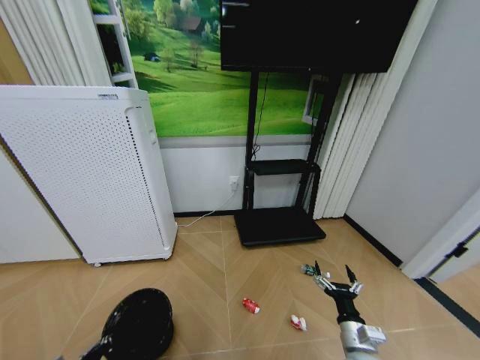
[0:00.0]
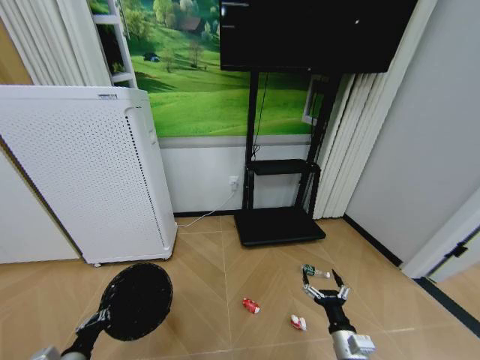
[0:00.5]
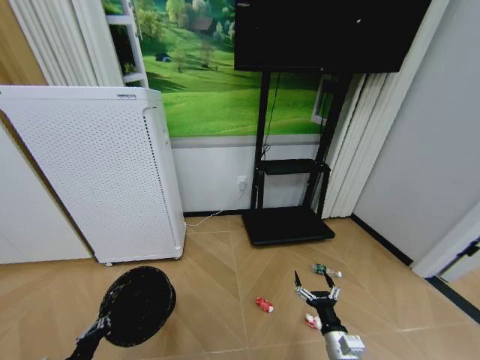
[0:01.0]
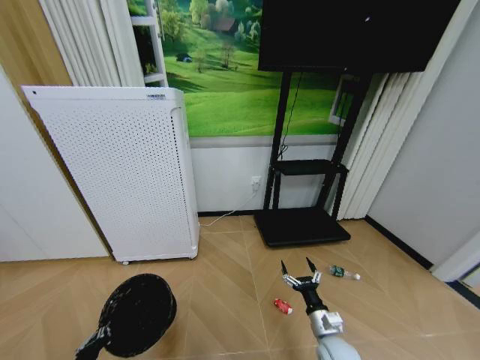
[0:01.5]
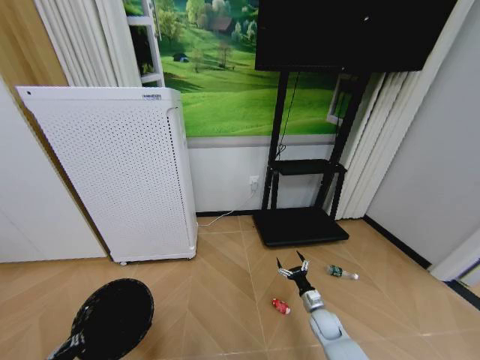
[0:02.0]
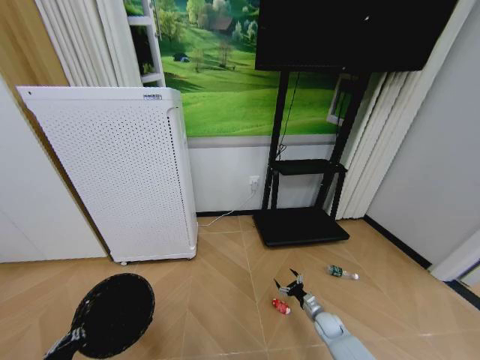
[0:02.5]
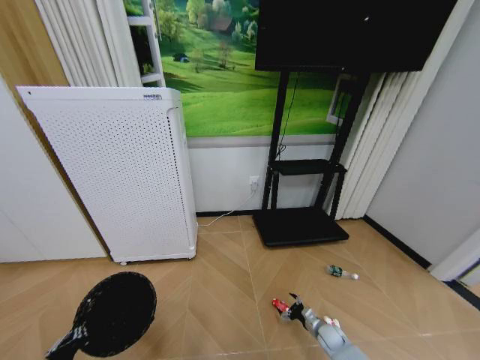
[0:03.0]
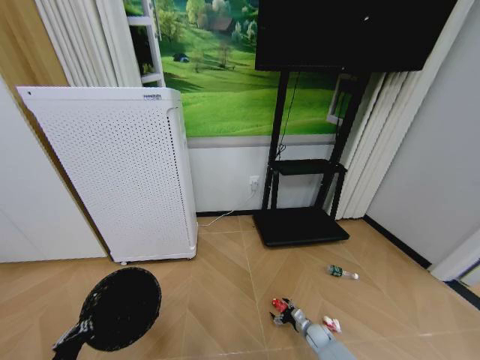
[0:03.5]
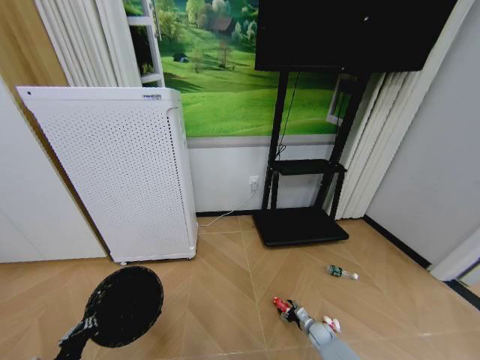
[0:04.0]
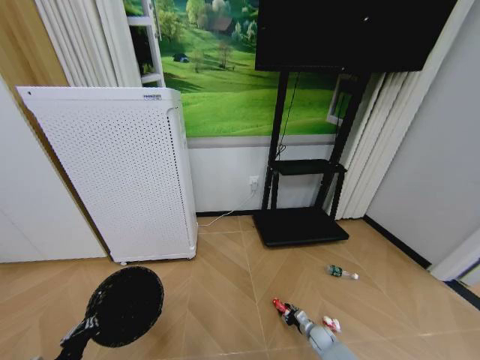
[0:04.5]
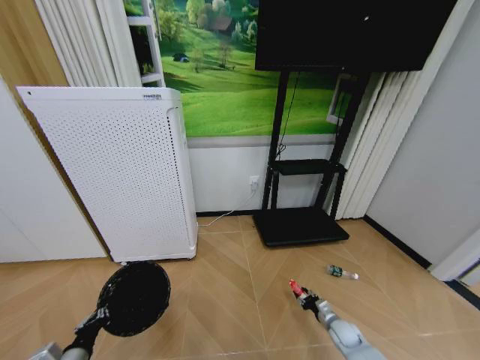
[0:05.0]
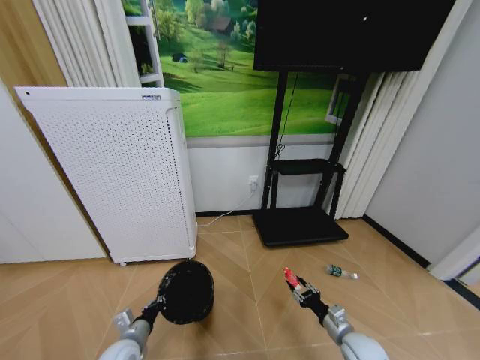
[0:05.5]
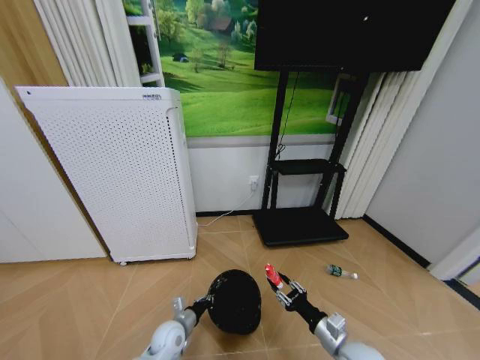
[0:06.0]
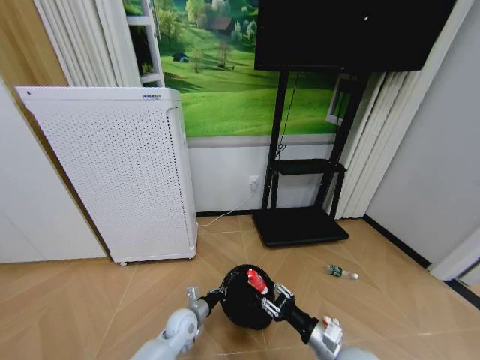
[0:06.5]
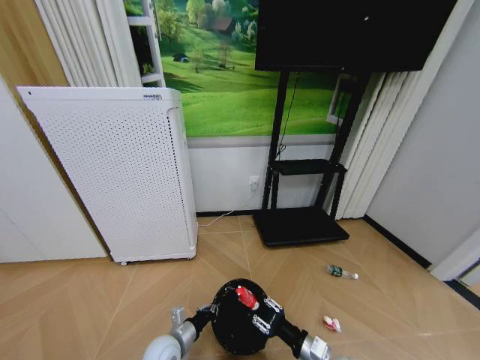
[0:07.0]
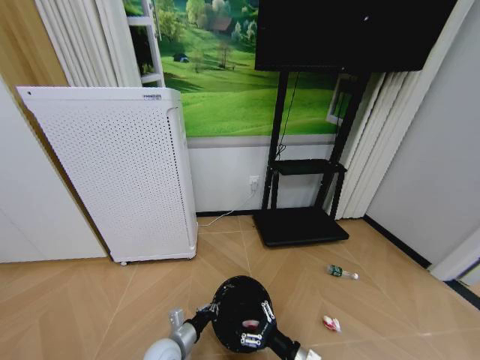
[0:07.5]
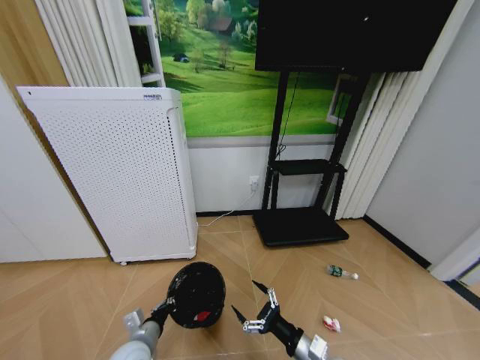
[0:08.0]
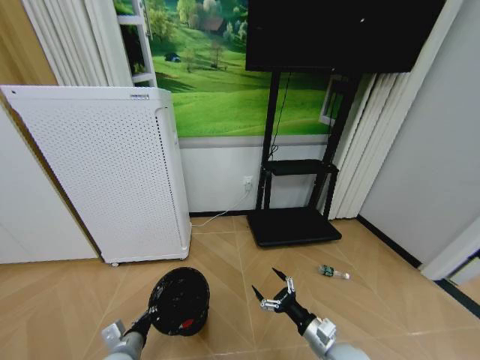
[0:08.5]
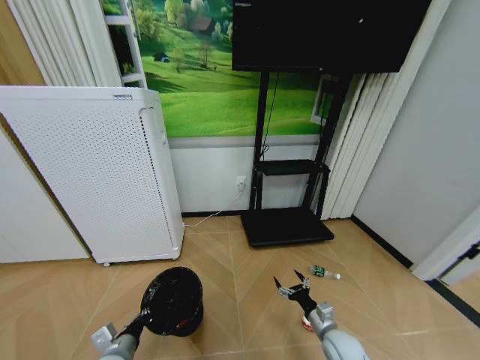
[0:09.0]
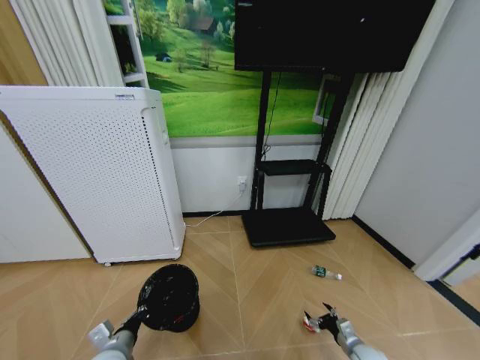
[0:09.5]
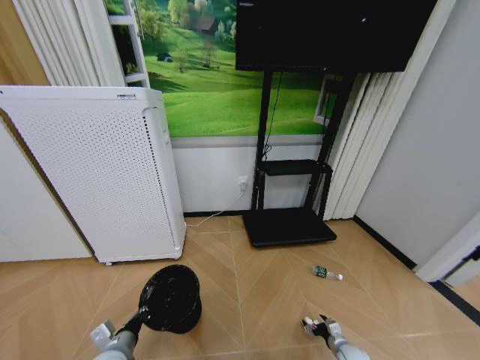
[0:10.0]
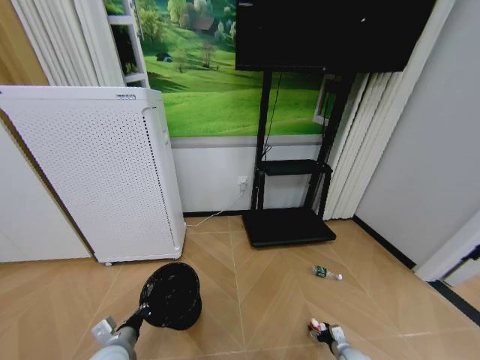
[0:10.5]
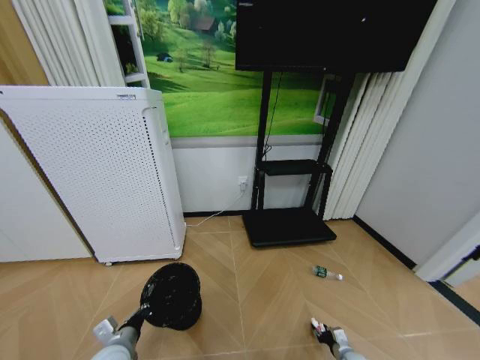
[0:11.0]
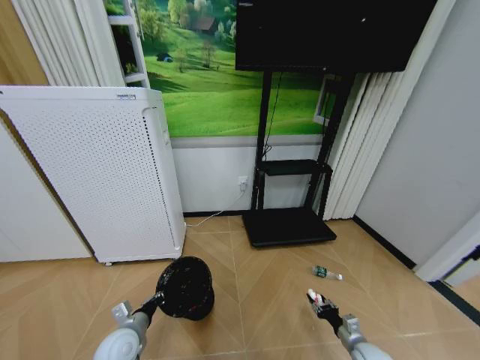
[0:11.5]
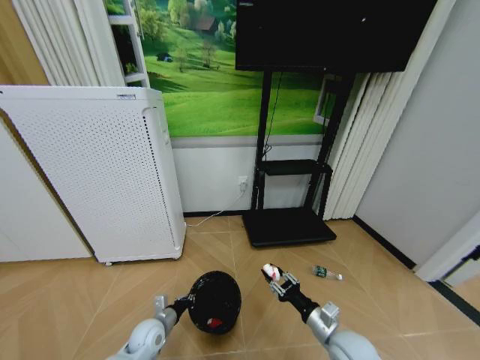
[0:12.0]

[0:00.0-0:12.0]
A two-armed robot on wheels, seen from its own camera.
Task of the whole recording: Pick up the trash bin and place the garbage on the floor into it.
0:00.0 to 0:02.0: The right gripper shifts about 20 cm forward and downward.
0:02.0 to 0:04.0: The right gripper heads downward, covering about 10 cm.
0:04.0 to 0:06.0: The left gripper moves to the right, forward and downward, about 25 cm, while the right gripper heads upward and backward, covering roughly 30 cm, and closes its fingers.
0:06.0 to 0:08.0: The right gripper travels to the left by roughly 5 cm, and opens its fingers. Meanwhile the left gripper is displaced upward, backward and to the left by about 10 cm.
0:08.0 to 0:10.0: The right gripper is displaced downward and to the right by some 30 cm. The left gripper ends up about 5 cm from where it was.
0:10.0 to 0:12.0: The left gripper shifts some 10 cm downward and forward; the right gripper is displaced upward and to the left by about 25 cm, and closes its fingers.

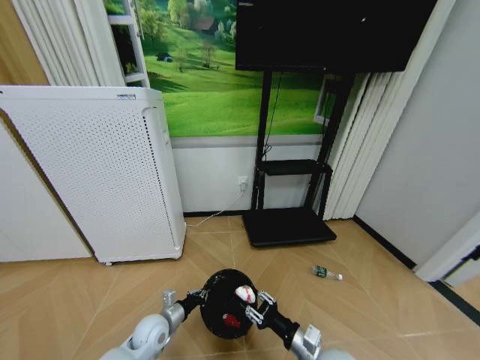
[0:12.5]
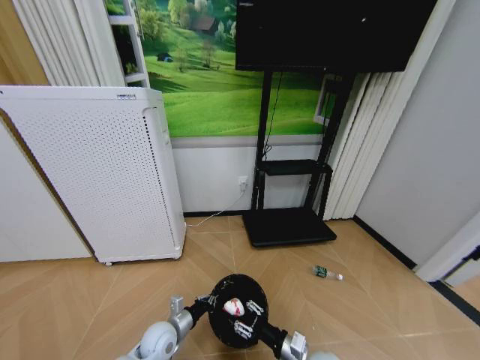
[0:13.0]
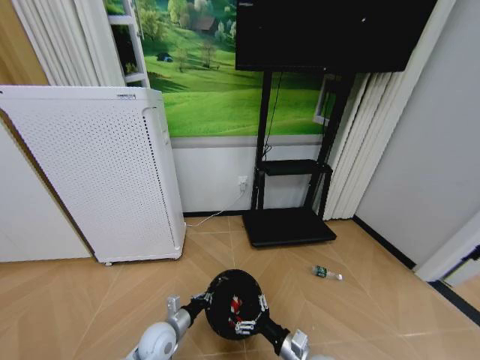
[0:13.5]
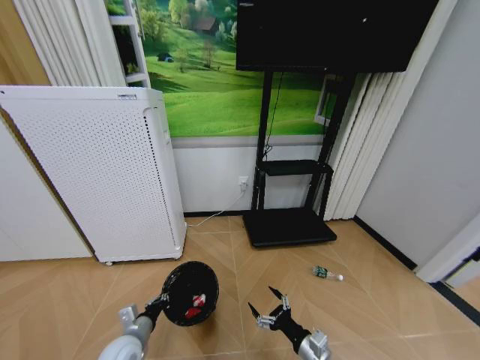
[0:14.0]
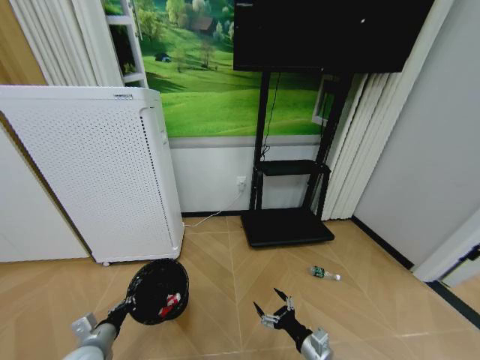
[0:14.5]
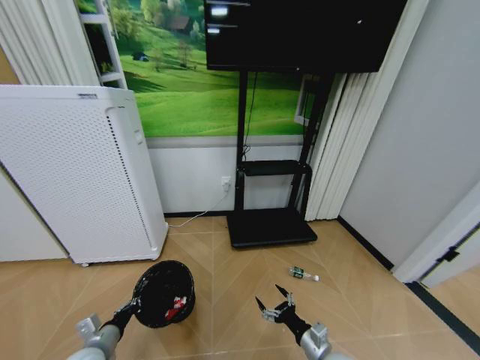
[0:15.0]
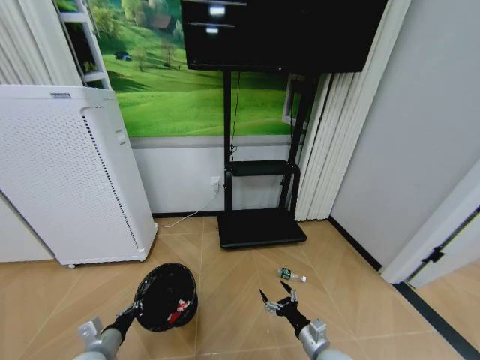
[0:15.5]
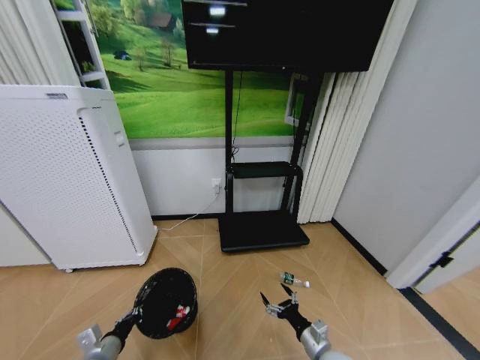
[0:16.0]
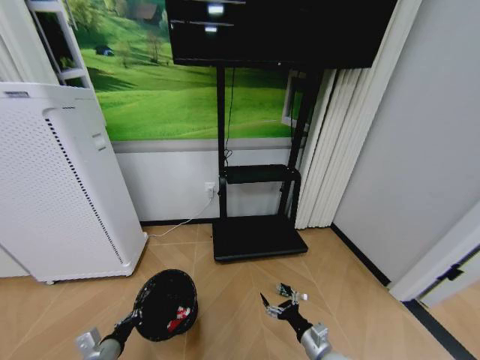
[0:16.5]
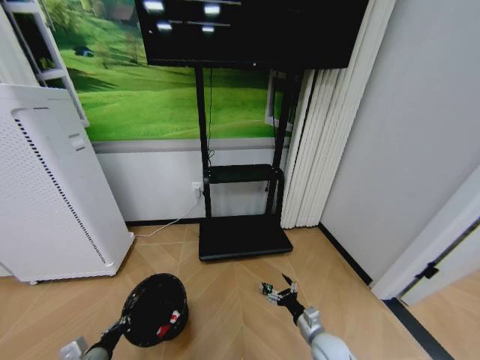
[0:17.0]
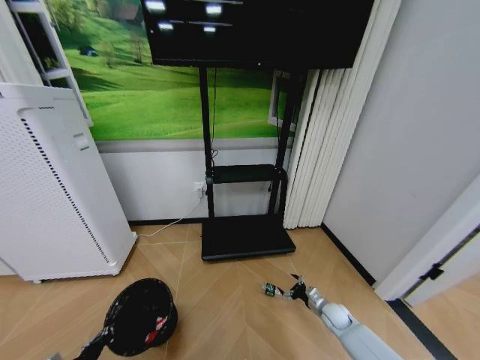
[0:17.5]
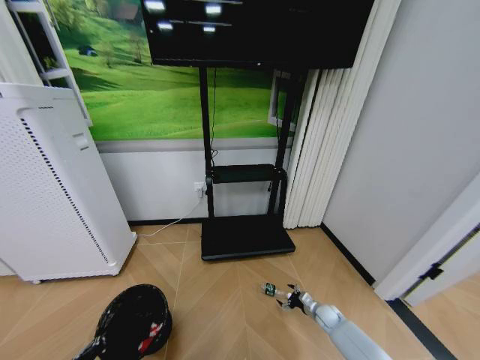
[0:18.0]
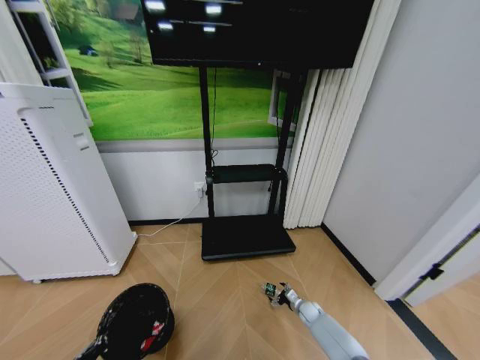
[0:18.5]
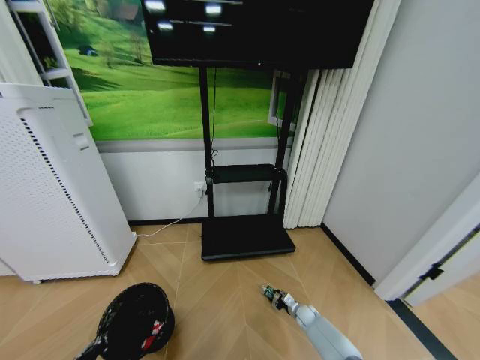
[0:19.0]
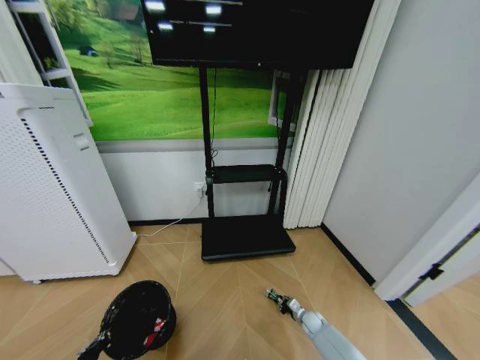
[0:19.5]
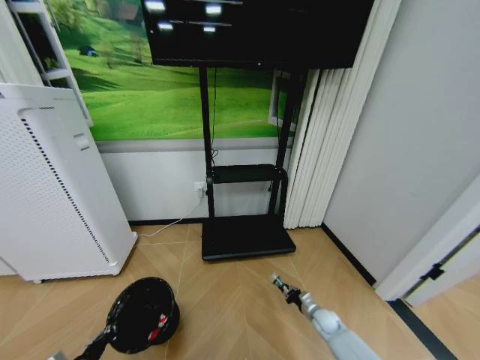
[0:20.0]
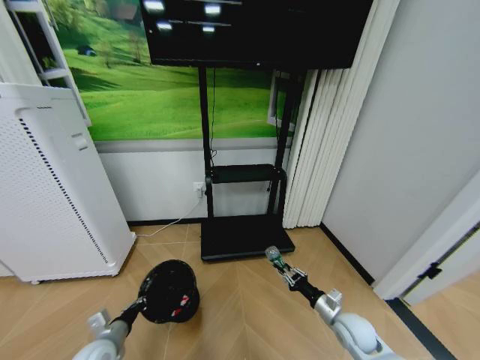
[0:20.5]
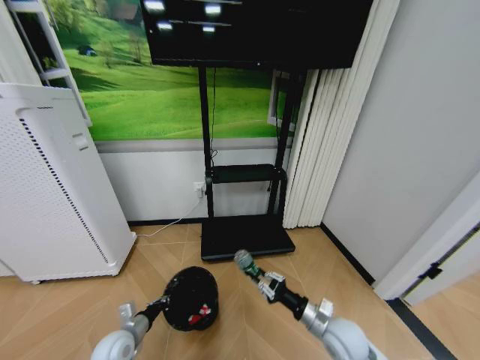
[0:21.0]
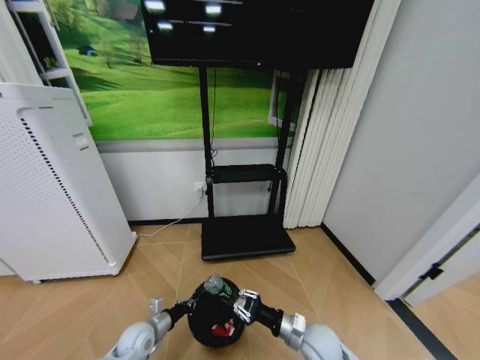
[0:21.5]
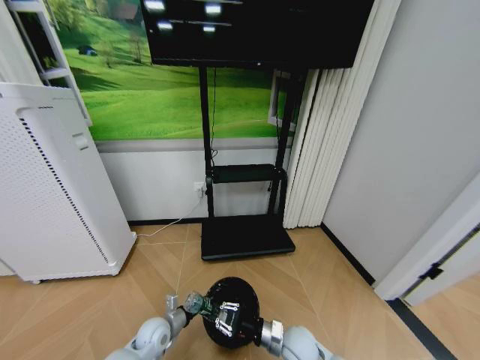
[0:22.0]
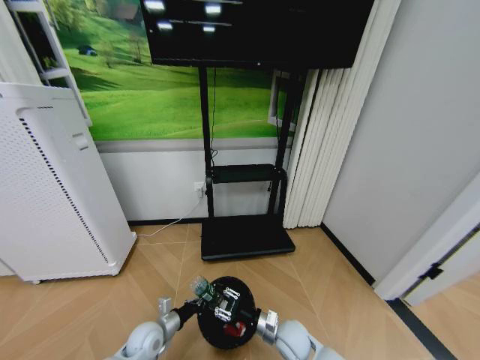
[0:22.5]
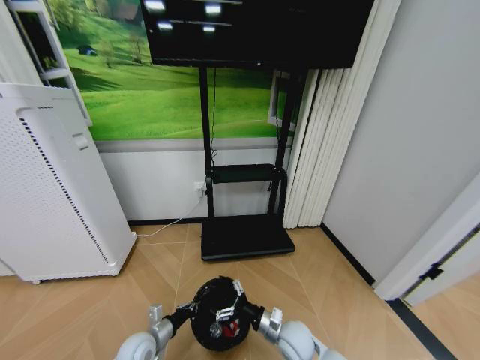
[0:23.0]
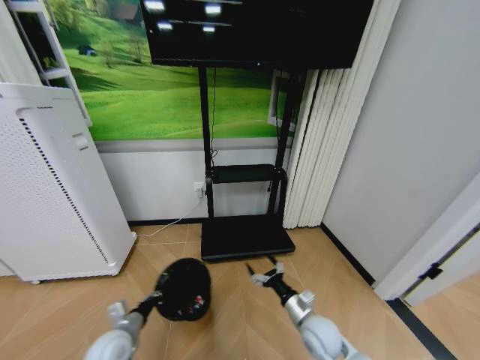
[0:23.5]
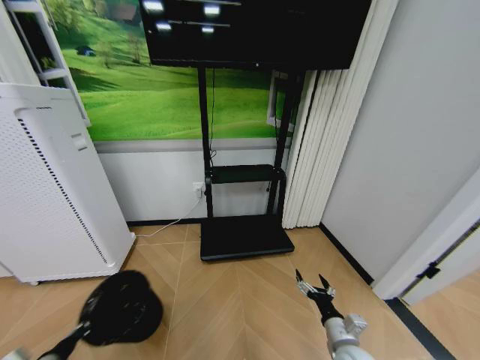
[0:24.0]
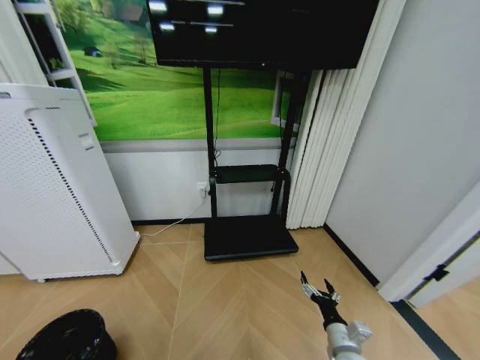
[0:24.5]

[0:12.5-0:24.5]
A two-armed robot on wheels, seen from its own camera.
Task of the whole recording: Pick up the trash bin and place the garbage on the floor into it.
0:12.5 to 0:14.5: The left gripper travels to the left, backward and upward by some 15 cm. Meanwhile the right gripper changes place by roughly 5 cm, and opens its fingers.
0:16.5 to 0:18.5: The right gripper is displaced forward and downward by about 25 cm, while the left gripper goes some 5 cm backward.
0:18.5 to 0:20.5: The right gripper moves upward and backward, about 25 cm, and closes its fingers; the left gripper travels forward by roughly 10 cm.
0:20.5 to 0:22.5: The right gripper is displaced to the left by roughly 20 cm. Meanwhile the left gripper goes some 10 cm to the right, downward and forward.
0:22.5 to 0:24.5: The right gripper heads to the right and backward, covering roughly 15 cm, and opens its fingers, while the left gripper shifts approximately 35 cm to the left and backward.

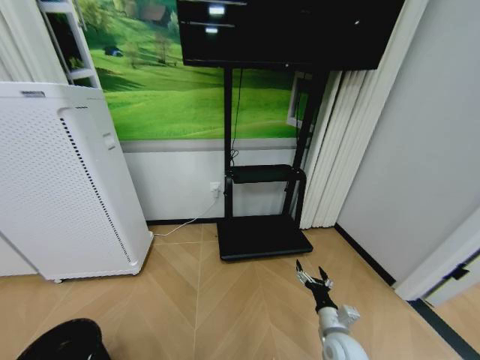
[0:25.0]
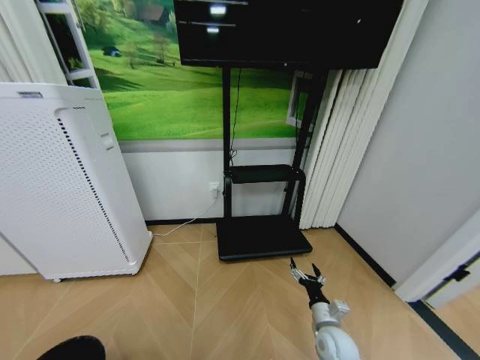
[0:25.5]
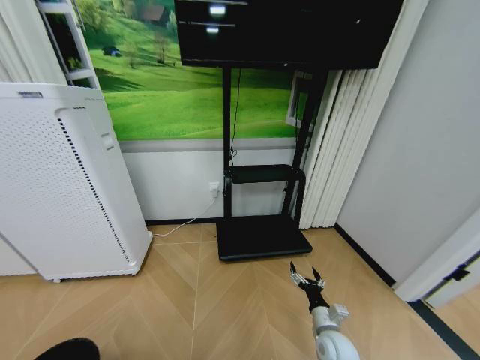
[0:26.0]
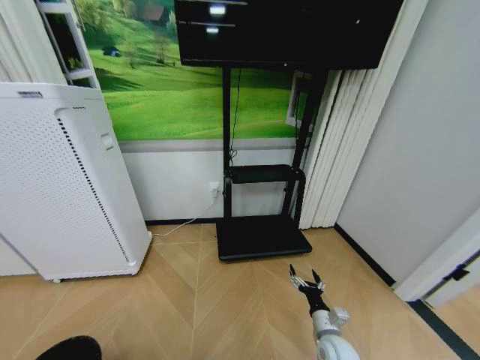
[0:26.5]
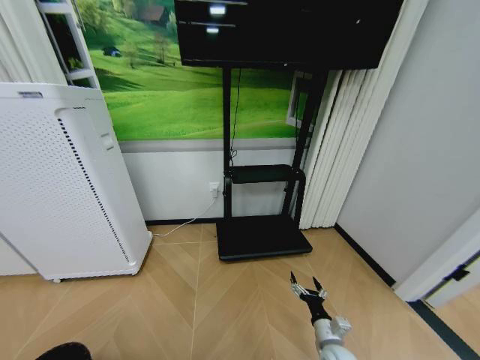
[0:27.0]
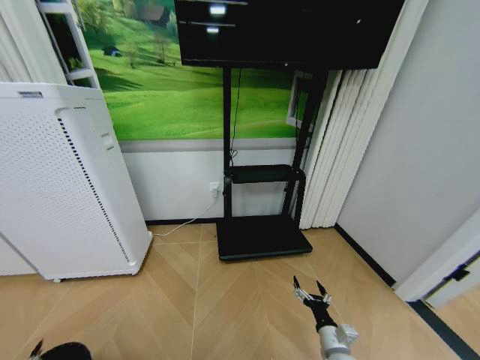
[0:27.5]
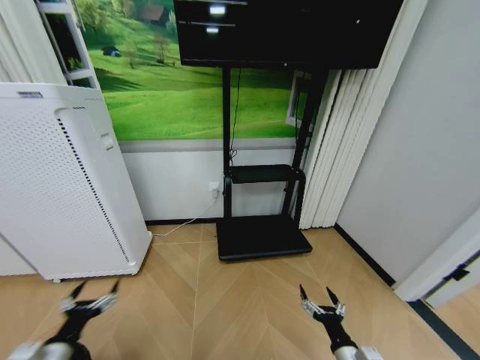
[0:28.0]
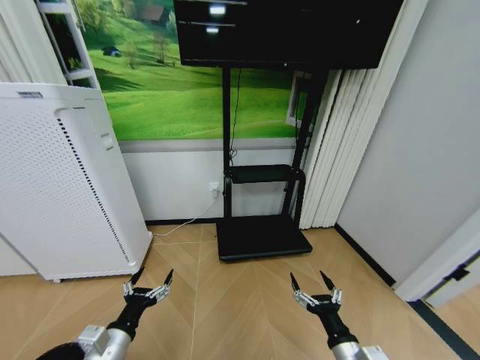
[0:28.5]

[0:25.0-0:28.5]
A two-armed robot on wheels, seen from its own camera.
Task of the whole recording: Pick up the trash bin and place the garbage on the floor into it.
0:25.0 to 0:27.0: The left gripper changes place by roughly 5 cm, and opens.
0:27.0 to 0:28.5: The left gripper shifts some 30 cm to the right, forward and upward, and opens its fingers. The right gripper is displaced upward and backward by approximately 15 cm.
